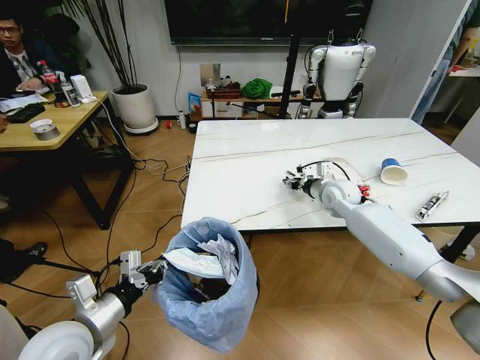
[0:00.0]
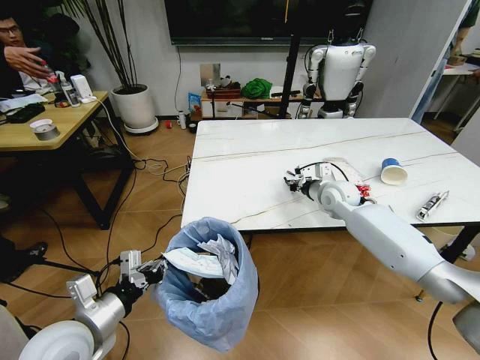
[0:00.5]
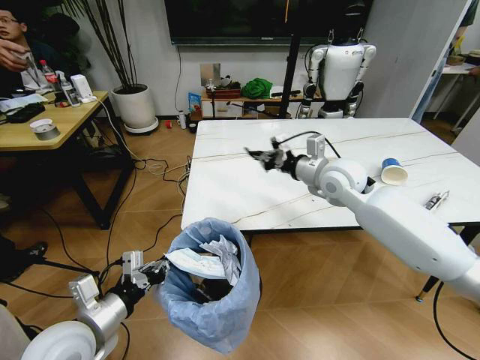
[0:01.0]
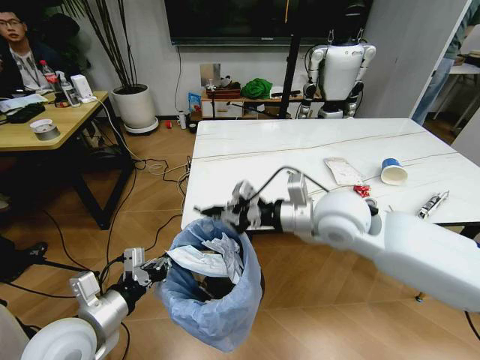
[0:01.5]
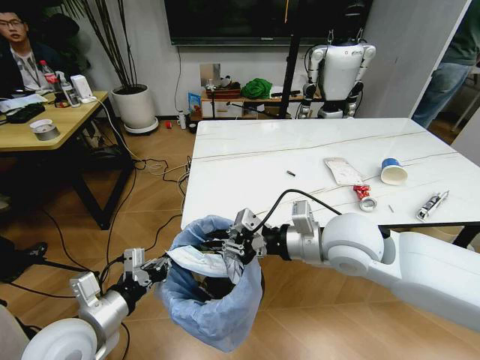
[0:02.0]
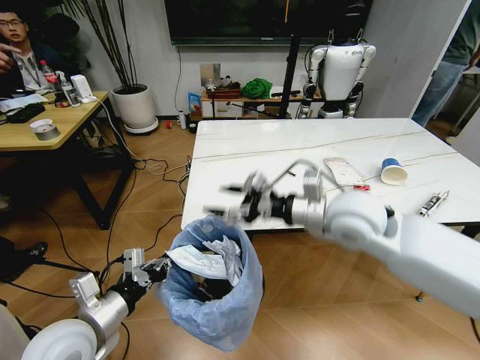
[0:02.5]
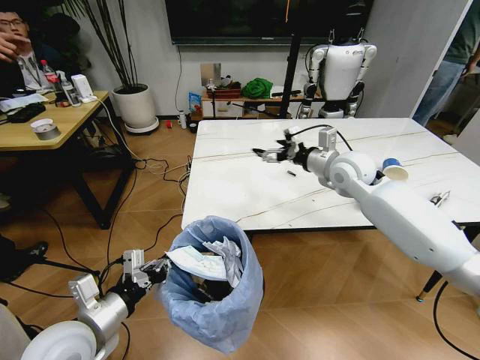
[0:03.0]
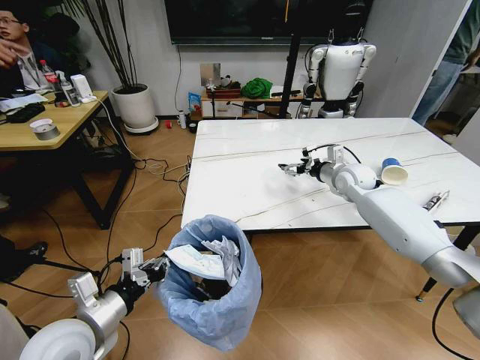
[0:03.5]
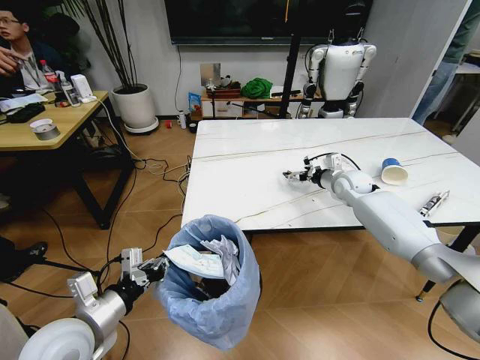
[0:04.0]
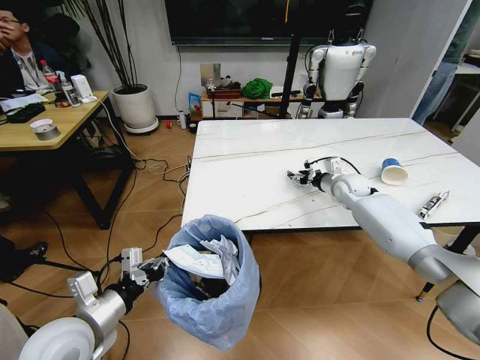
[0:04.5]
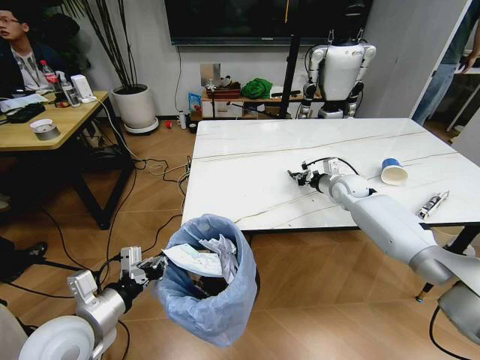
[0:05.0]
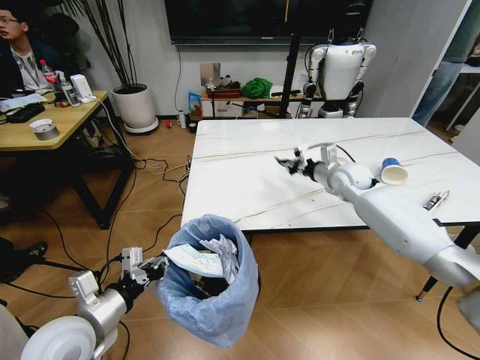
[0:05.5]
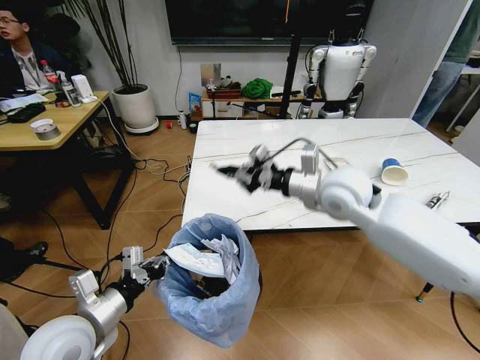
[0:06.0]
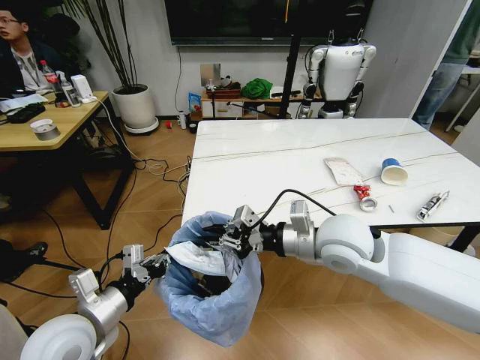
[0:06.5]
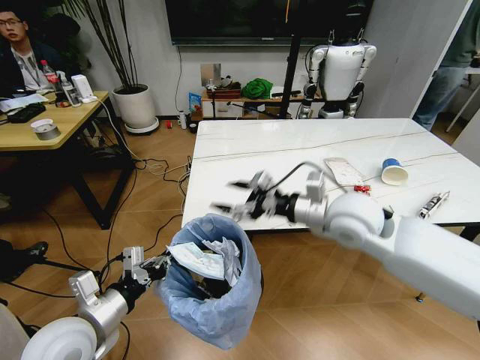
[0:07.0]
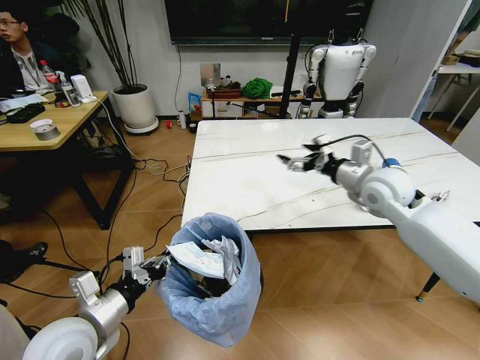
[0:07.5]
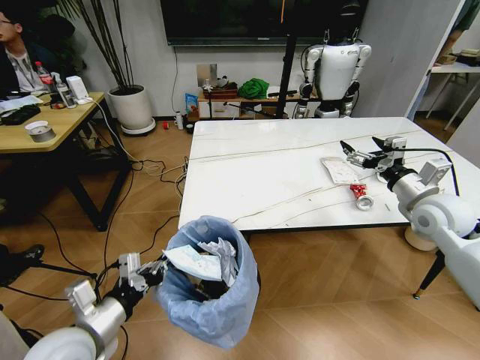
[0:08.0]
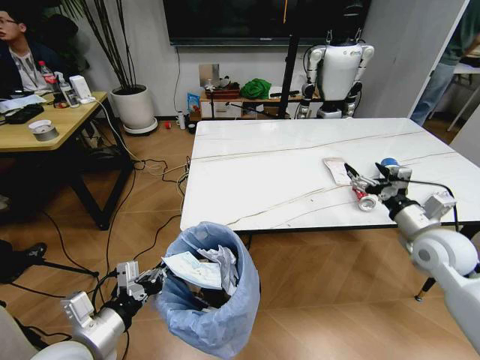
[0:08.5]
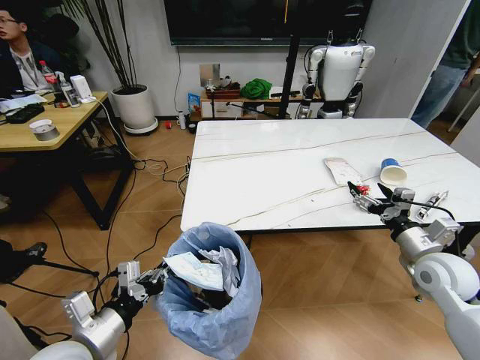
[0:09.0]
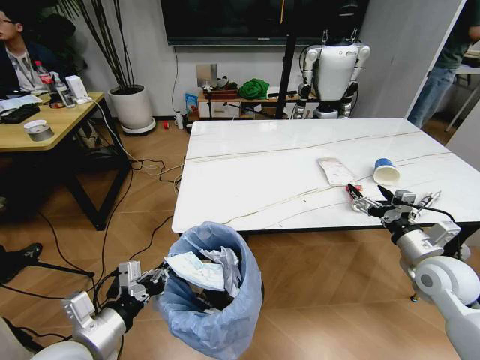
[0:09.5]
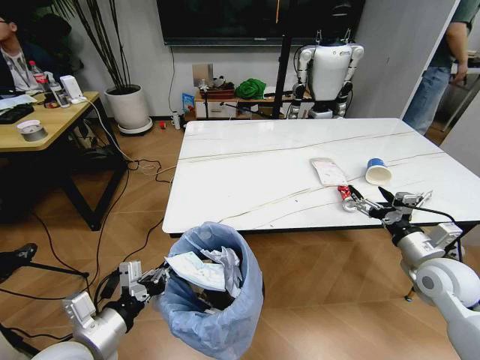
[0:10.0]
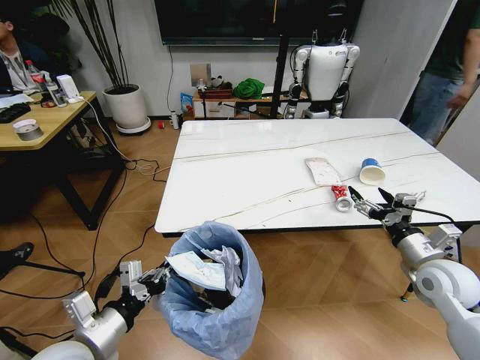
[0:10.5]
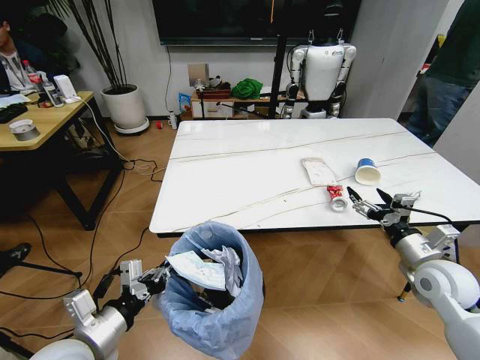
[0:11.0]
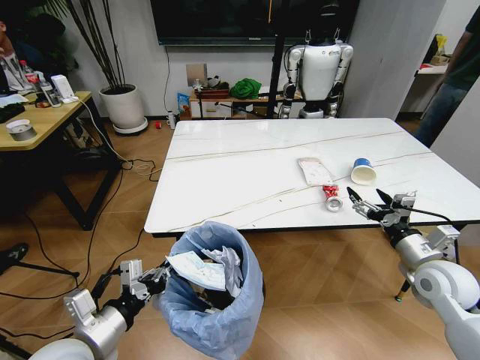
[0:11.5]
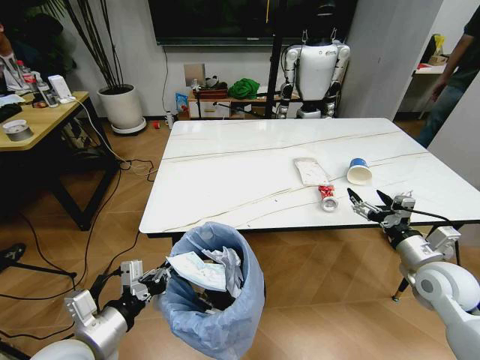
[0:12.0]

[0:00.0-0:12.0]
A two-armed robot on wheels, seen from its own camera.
Task of the whole recording: Pick up the trash bin and place the trash from the table into it.
0:00.0 to 0:02.0: The right gripper heads backward, upward and to the left, covering roughly 25 cm.
0:02.0 to 0:04.0: The right gripper moves forward, to the right and downward, about 35 cm, and opens its fingers.
0:04.0 to 0:06.0: The right gripper is displaced backward, upward and to the left by about 25 cm, and closes.
0:06.0 to 0:08.0: The right gripper shifts about 20 cm to the right, and opens.
0:08.0 to 0:10.0: The right gripper is displaced backward and downward by about 15 cm.

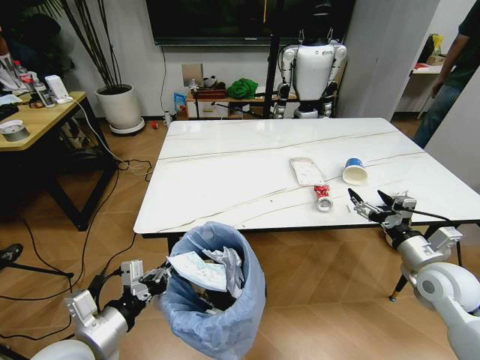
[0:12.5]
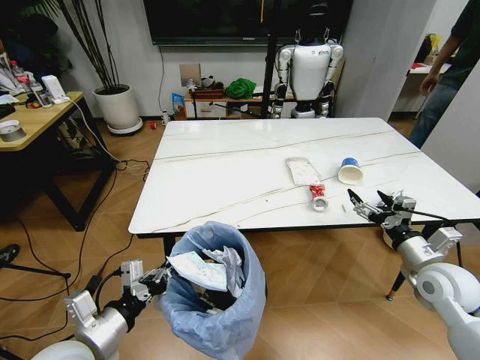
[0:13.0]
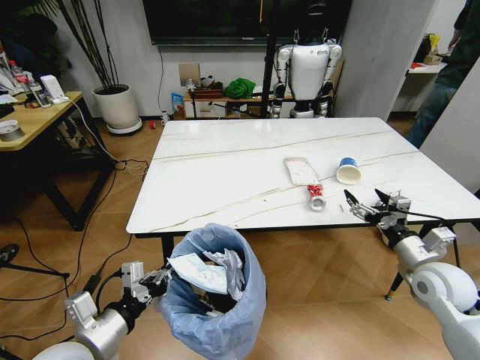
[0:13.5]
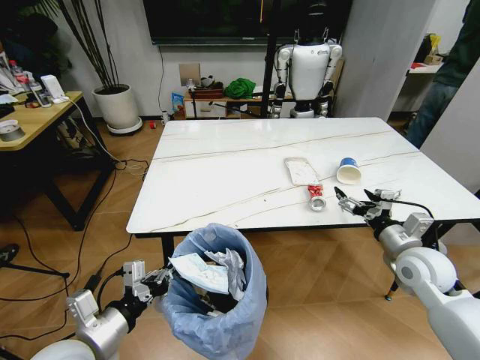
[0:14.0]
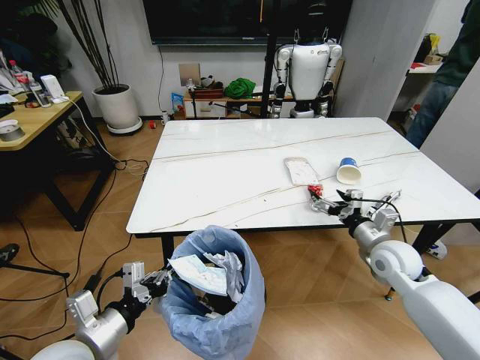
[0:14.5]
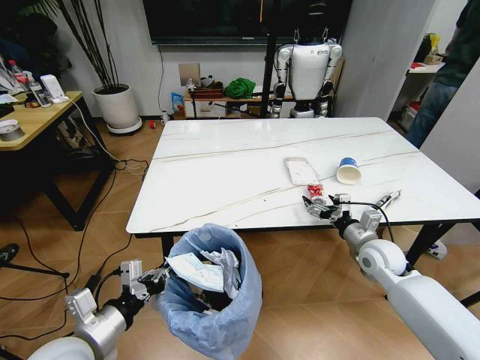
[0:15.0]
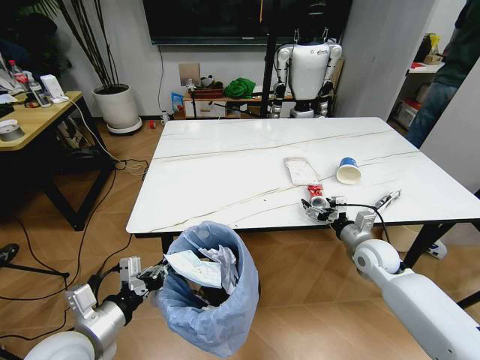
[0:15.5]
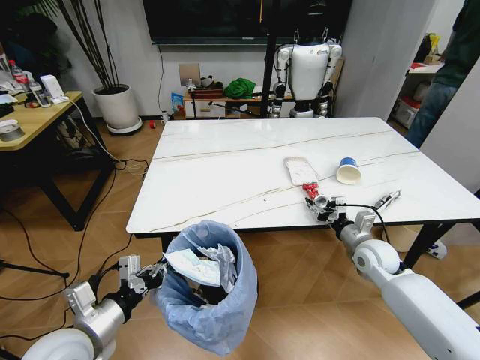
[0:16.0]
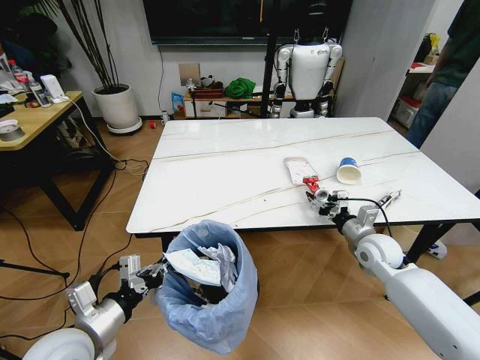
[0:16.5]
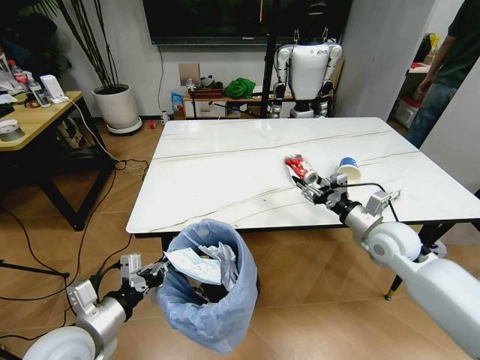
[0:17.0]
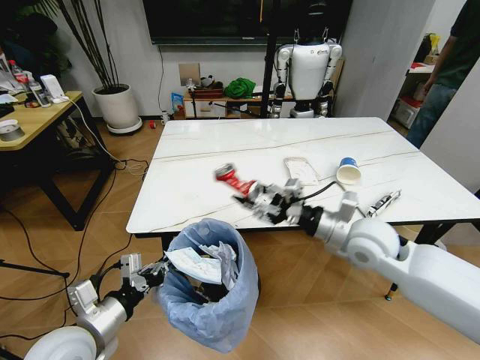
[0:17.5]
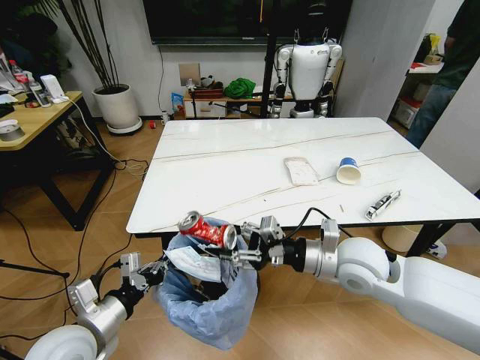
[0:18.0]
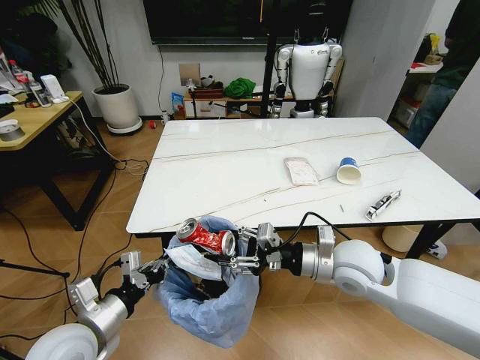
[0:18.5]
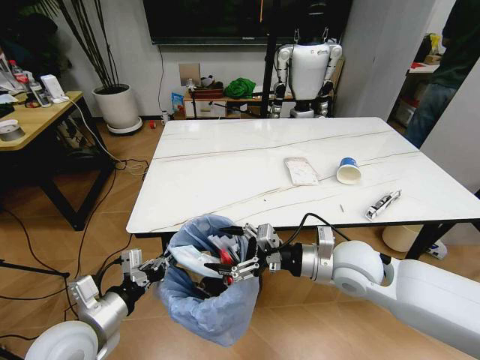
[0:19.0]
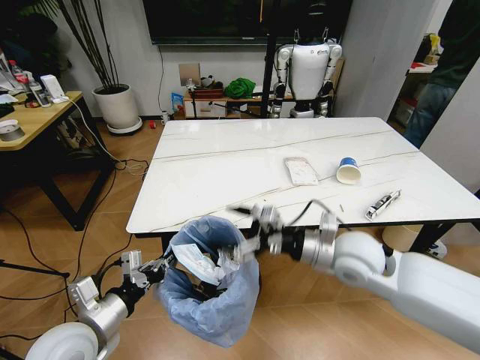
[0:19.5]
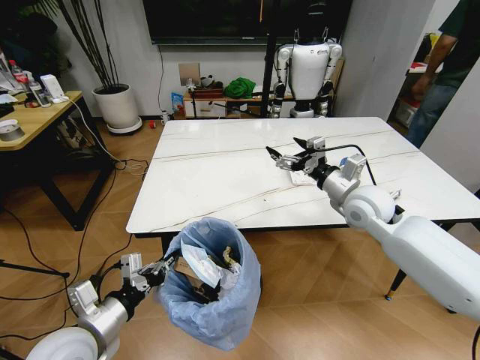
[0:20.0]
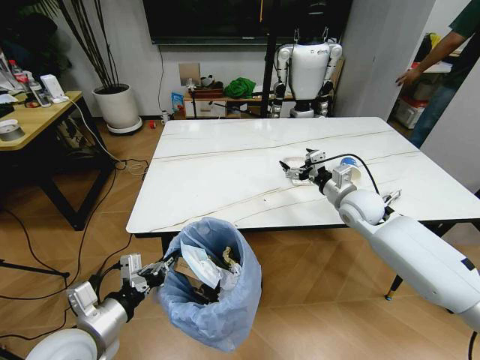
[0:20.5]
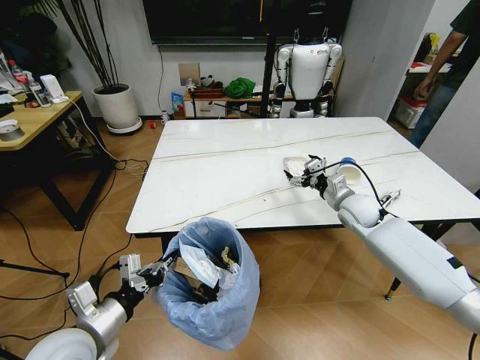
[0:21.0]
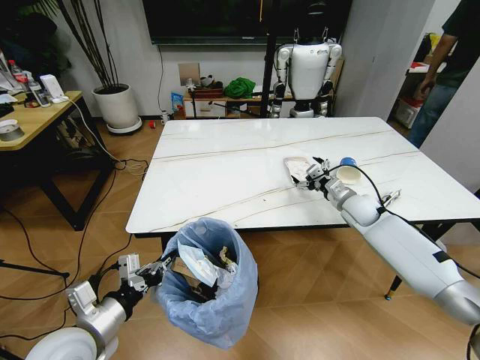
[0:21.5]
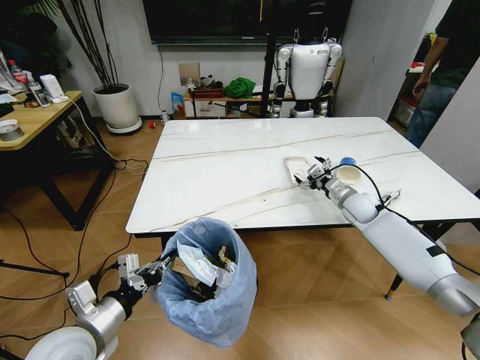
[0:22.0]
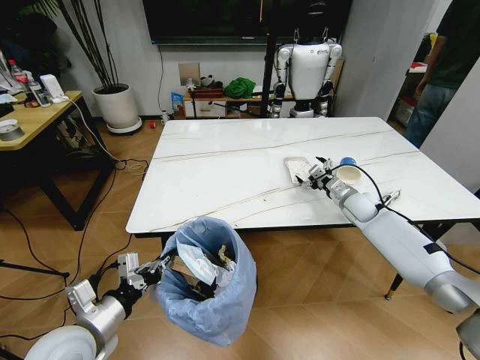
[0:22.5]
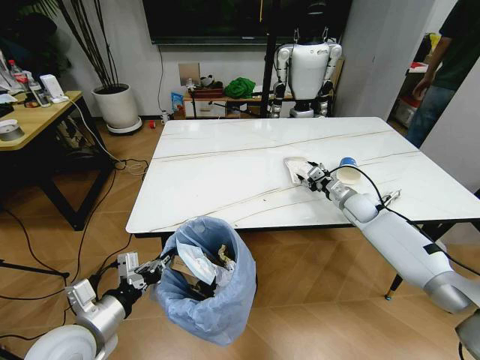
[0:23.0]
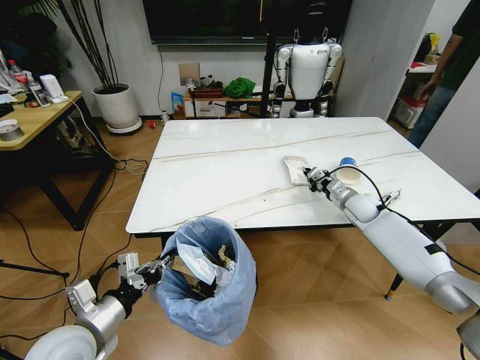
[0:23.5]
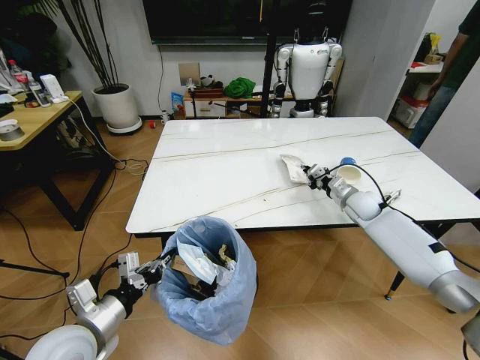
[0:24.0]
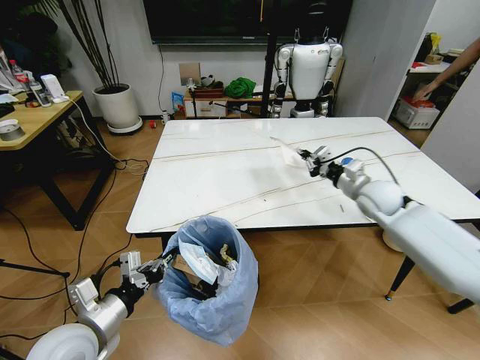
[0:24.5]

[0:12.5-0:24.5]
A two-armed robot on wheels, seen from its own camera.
Task of the whole recording: Pick up the trash bin and place the trash from the table into it.
0:12.5 to 0:14.5: The right gripper moves forward and to the left, some 10 cm.
0:14.5 to 0:16.5: The right gripper closes up.
0:16.5 to 0:18.5: The right gripper is displaced to the left, upward and backward by approximately 20 cm.
0:18.5 to 0:20.5: The right gripper moves forward and to the right, some 15 cm, and opens up.
0:20.5 to 0:22.5: The right gripper moves downward, forward and to the right, some 15 cm.
0:22.5 to 0:24.5: The right gripper is displaced upward and backward by roughly 10 cm, and closes its fingers.

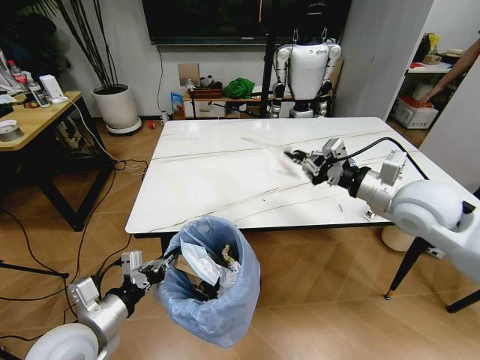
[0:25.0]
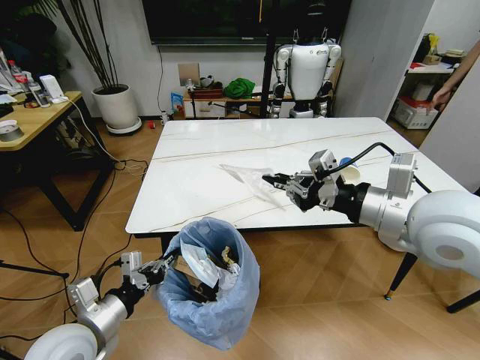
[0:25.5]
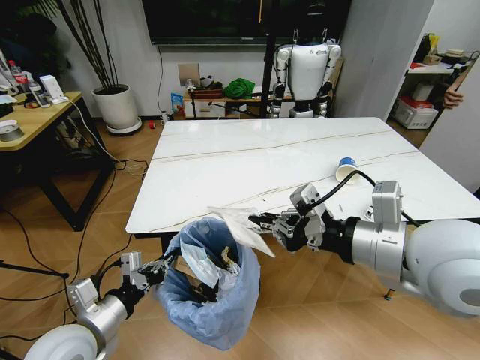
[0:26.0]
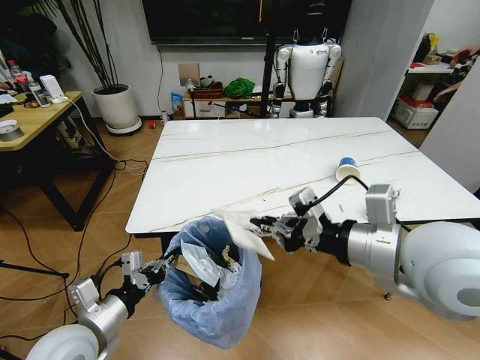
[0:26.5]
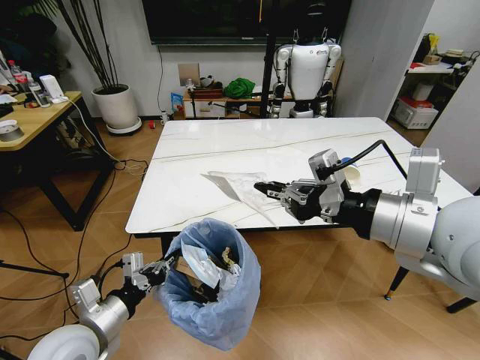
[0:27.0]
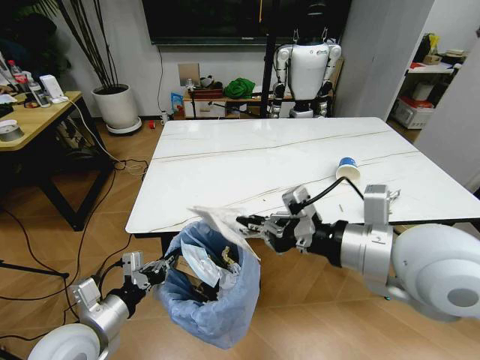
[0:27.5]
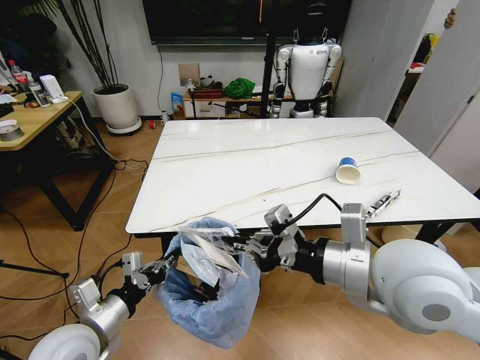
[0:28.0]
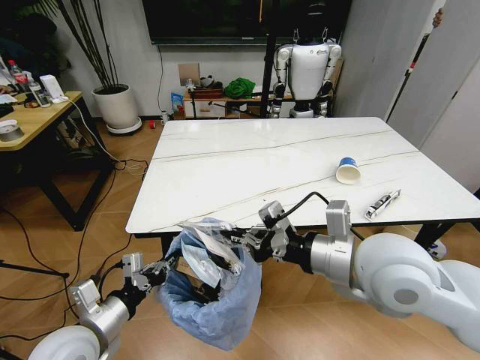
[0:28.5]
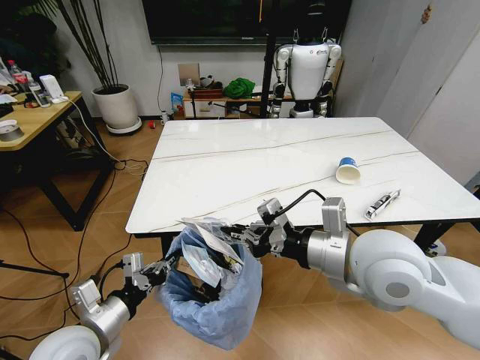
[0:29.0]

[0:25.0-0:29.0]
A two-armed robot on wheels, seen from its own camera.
Task of the whole recording: Pick up the trash bin and place the trash from the table into it.
0:25.0 to 0:27.0: The right gripper is displaced backward, upward and to the left by about 20 cm.
0:27.0 to 0:29.0: The right gripper moves downward and to the left, approximately 10 cm.
